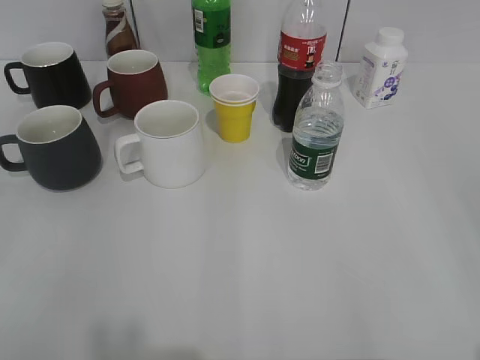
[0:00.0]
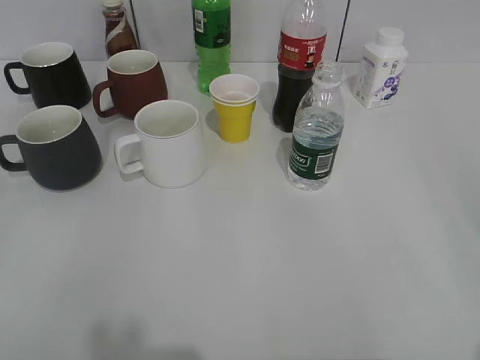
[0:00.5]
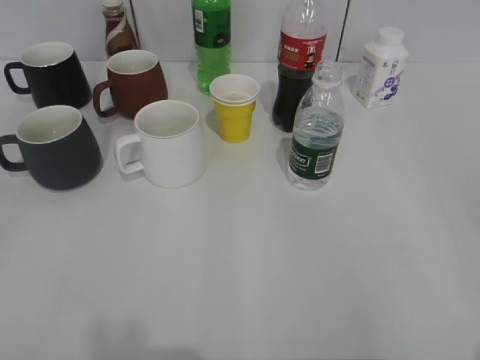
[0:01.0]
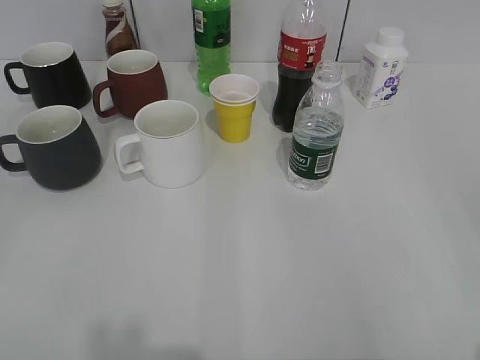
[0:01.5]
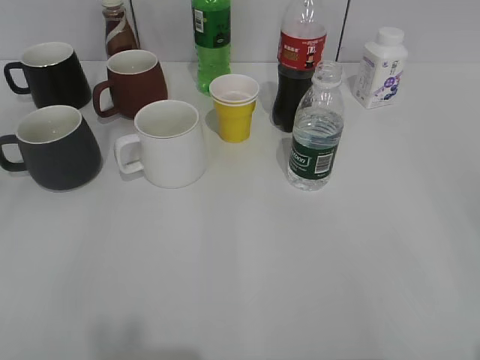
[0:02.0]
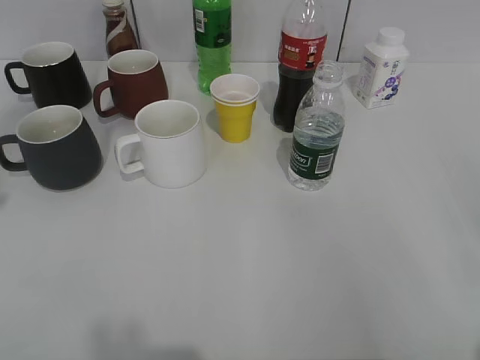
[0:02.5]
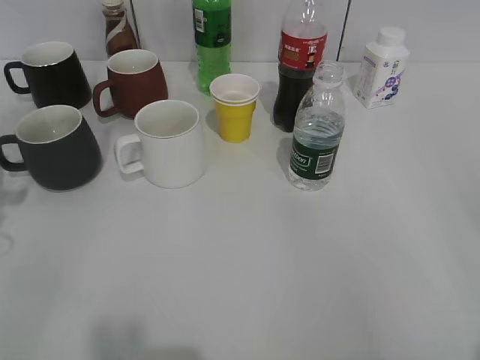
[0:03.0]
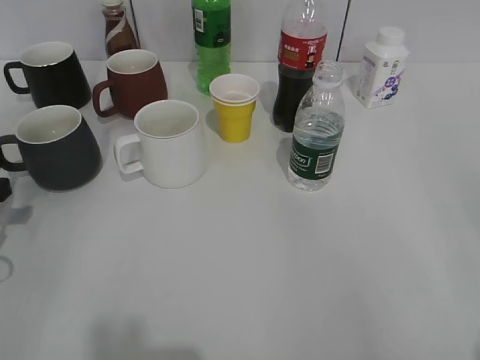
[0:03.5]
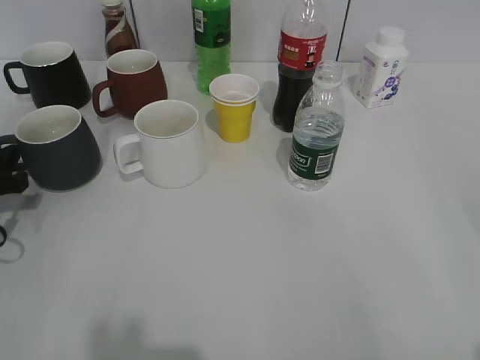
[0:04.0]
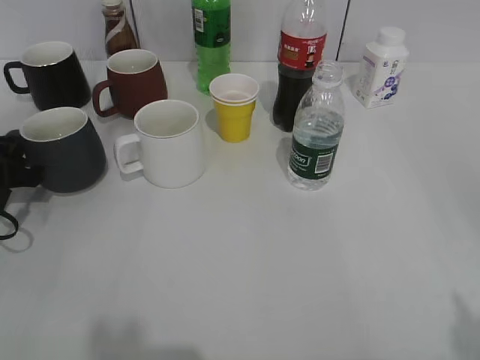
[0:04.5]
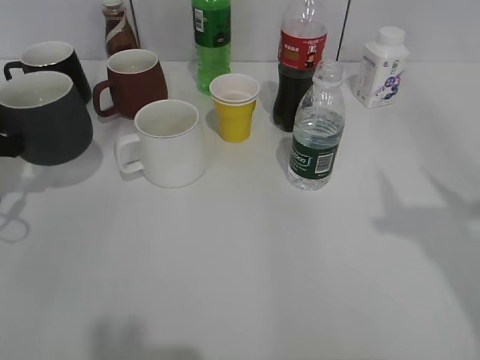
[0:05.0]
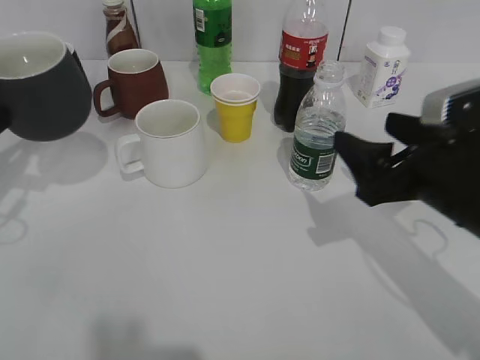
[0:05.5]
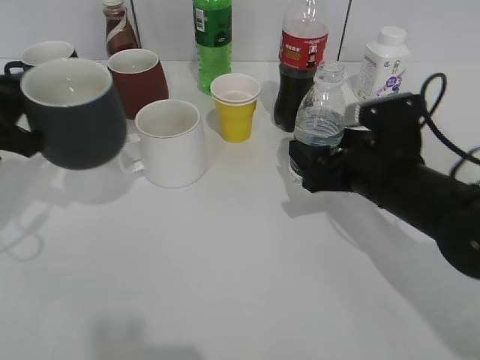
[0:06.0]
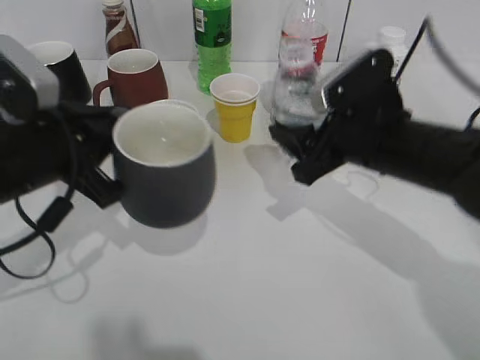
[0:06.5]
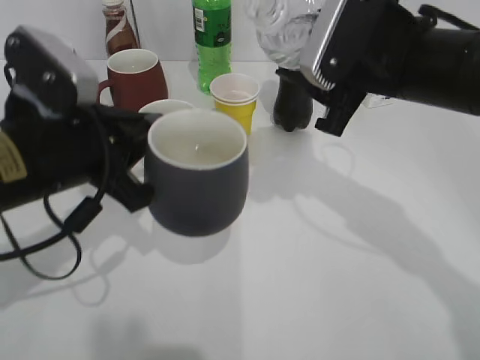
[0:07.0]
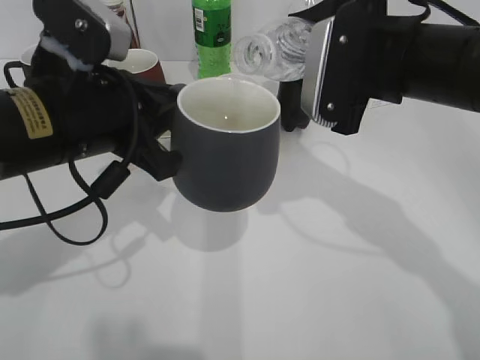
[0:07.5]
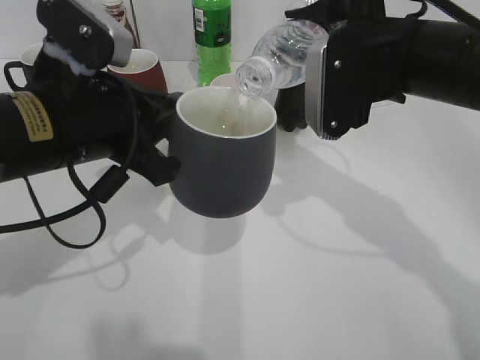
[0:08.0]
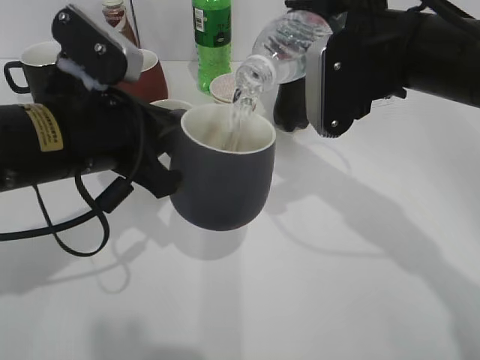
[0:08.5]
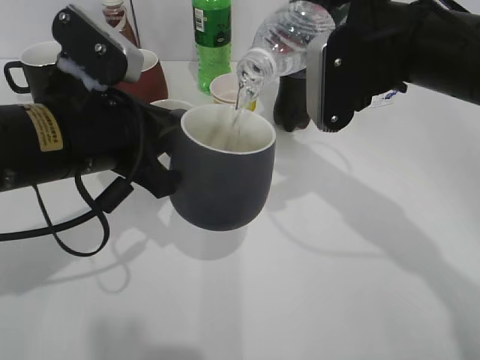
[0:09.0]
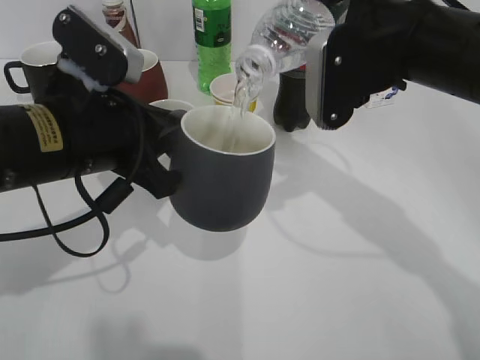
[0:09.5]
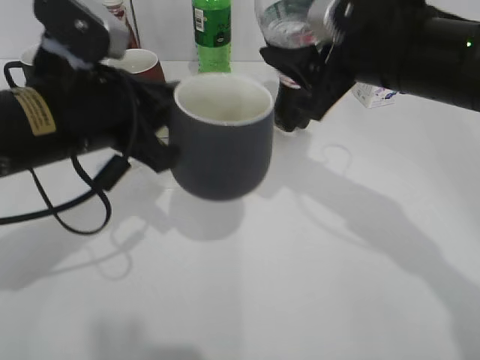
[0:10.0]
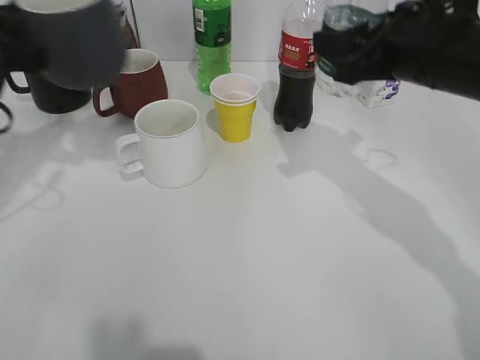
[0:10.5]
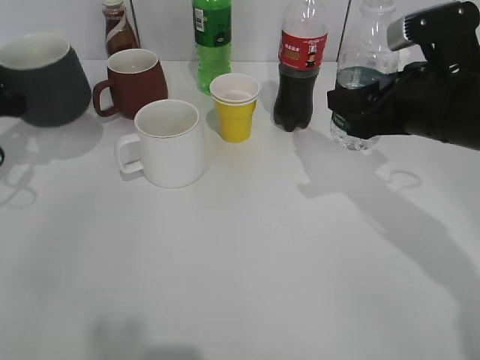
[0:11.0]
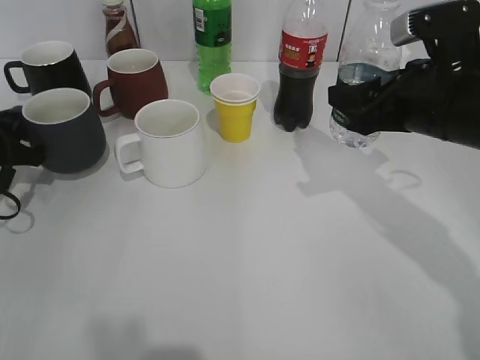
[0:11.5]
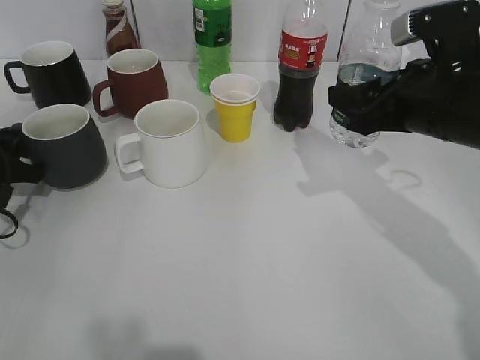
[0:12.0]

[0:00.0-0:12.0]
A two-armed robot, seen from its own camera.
Step, 0:02.0 to 0:04.0: Grasp the black cup with left gripper.
Step, 0:04.5 to 0:05.0: Lift the black cup with left gripper.
Step, 0:05.5 to 0:06.0: Grasp the bottle with water with right gripper.
Step, 0:06.5 to 0:10.0: Pour the water from bottle to cup with right gripper.
0:02.0 to 0:04.0: The left gripper heads forward and downward, covering roughly 30 cm.
0:04.0 to 0:06.0: The right gripper is displaced forward, downward and to the left by about 35 cm, and opens. Meanwhile the left gripper moves upward, approximately 10 cm, and closes.
0:06.0 to 0:08.0: The right gripper is displaced upward by approximately 15 cm, and closes up. Meanwhile the left gripper goes approximately 15 cm to the right.
0:10.0 to 0:12.0: The right gripper moves to the right, some 5 cm, while the left gripper heads to the left and downward, covering approximately 20 cm.

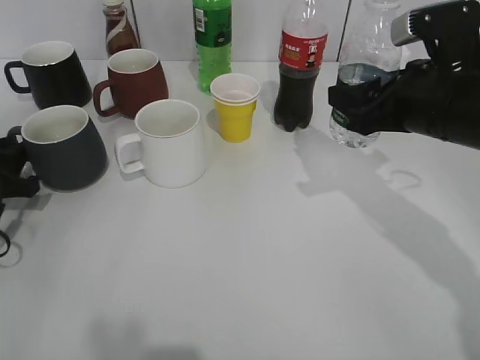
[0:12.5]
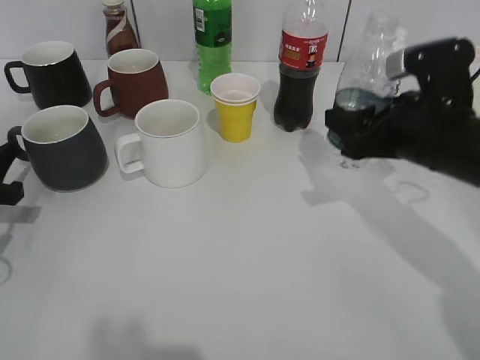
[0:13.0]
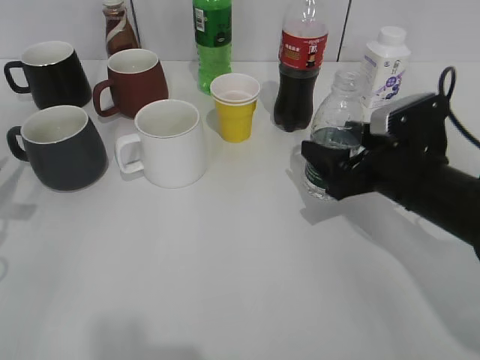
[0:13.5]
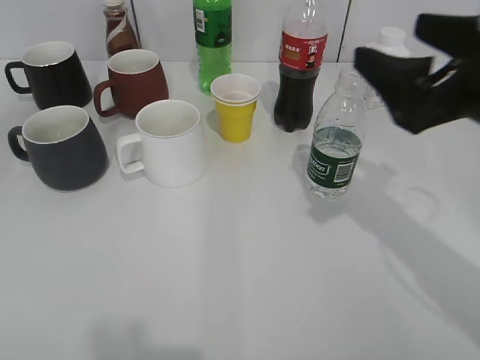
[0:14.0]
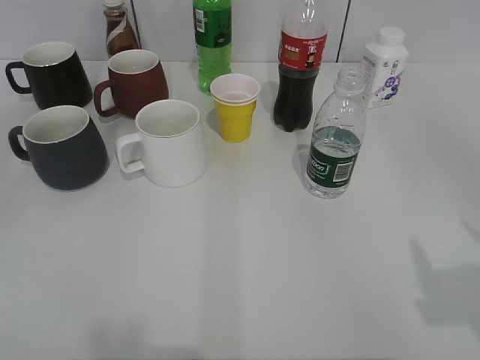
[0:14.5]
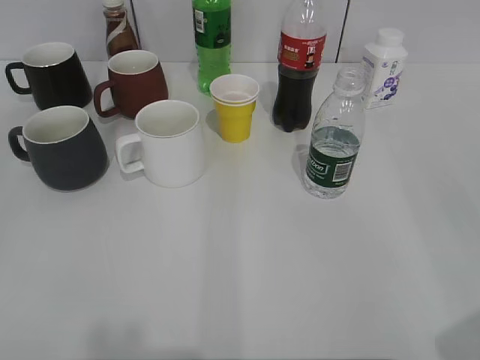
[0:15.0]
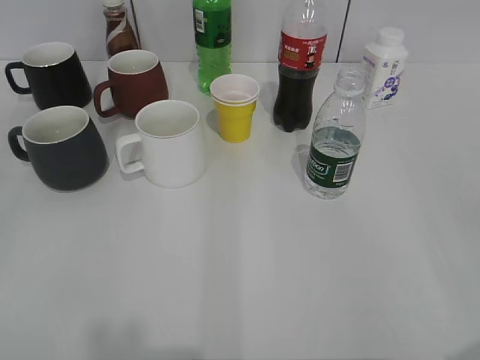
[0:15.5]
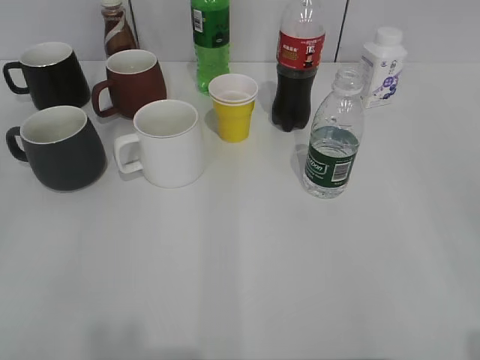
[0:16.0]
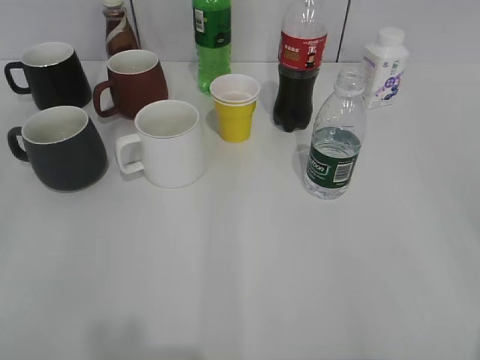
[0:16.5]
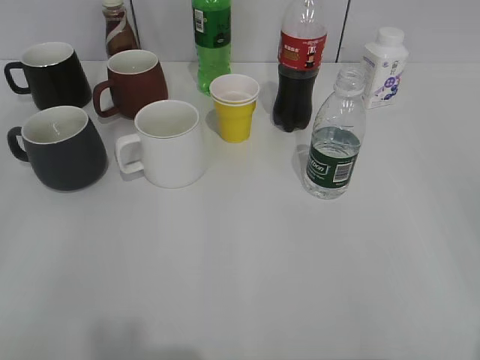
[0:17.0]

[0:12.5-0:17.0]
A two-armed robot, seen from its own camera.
Step, 0:13.0 to 0:13.5: Place the water bottle on the table with right gripper.
0:12.5 to 0:14.5: The right gripper travels backward, upward and to the right by roughly 25 cm, and opens, while the left gripper goes about 35 cm backward and upward, and opens its fingers.
